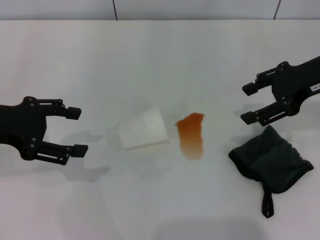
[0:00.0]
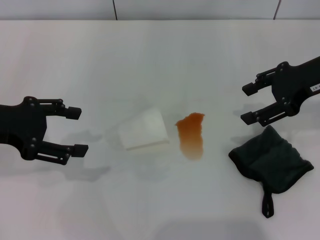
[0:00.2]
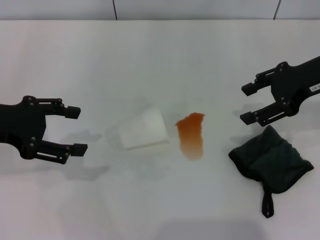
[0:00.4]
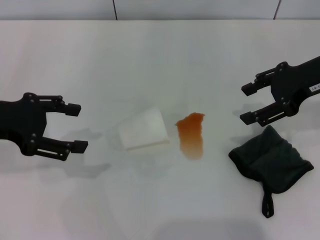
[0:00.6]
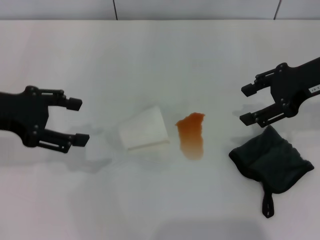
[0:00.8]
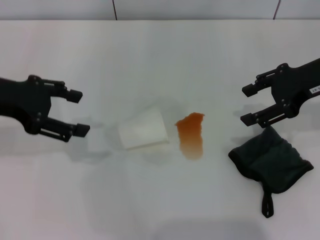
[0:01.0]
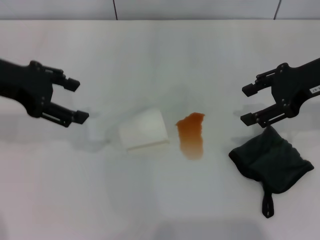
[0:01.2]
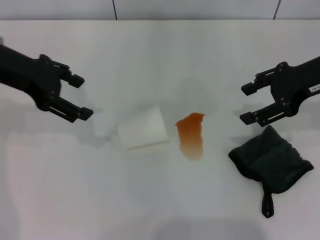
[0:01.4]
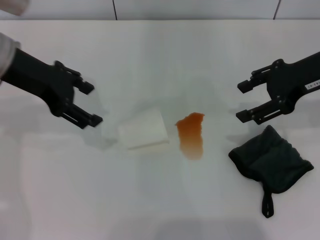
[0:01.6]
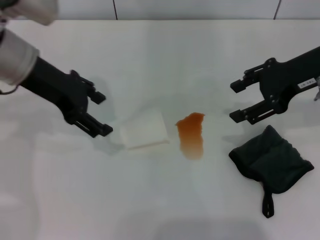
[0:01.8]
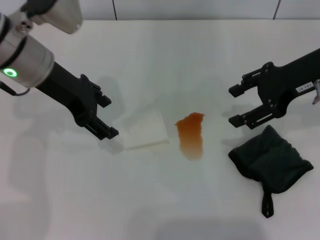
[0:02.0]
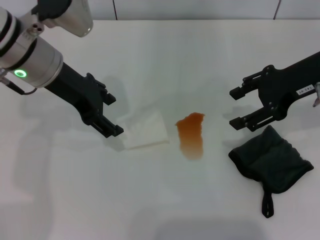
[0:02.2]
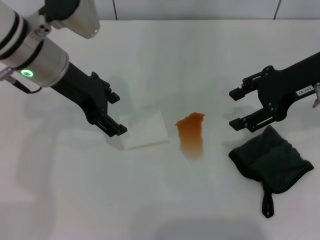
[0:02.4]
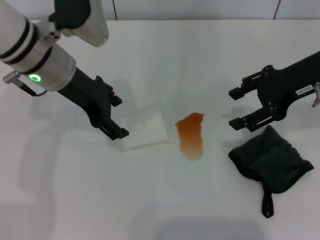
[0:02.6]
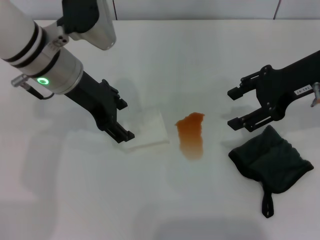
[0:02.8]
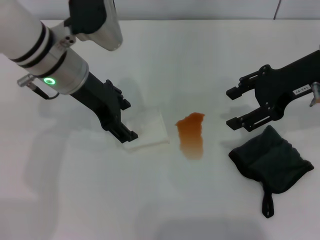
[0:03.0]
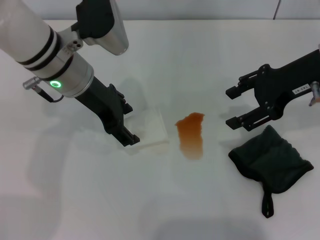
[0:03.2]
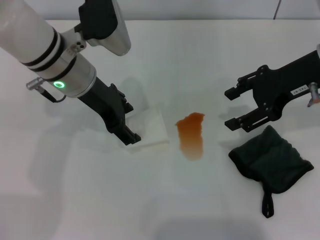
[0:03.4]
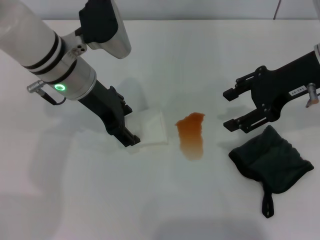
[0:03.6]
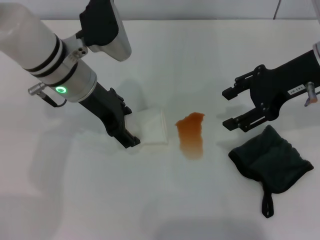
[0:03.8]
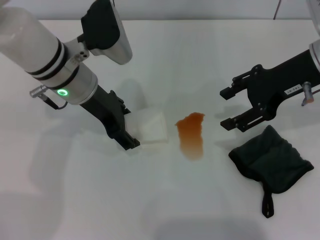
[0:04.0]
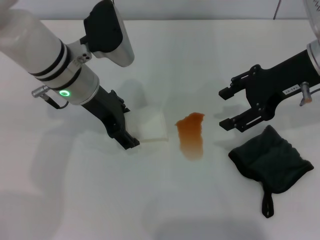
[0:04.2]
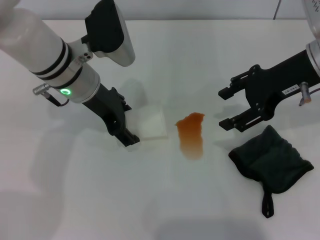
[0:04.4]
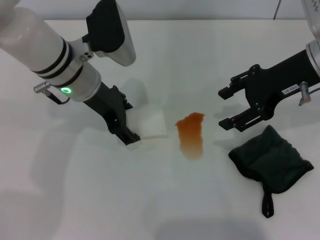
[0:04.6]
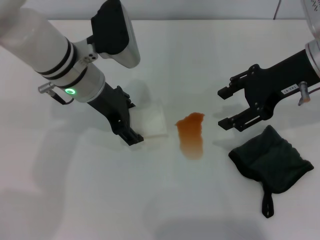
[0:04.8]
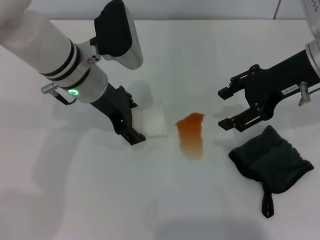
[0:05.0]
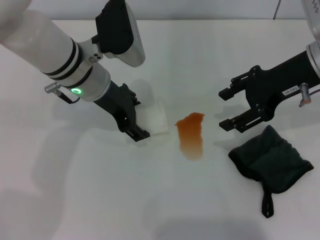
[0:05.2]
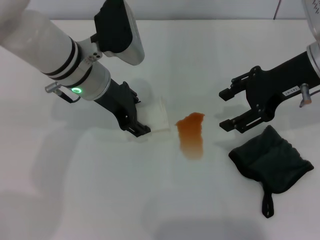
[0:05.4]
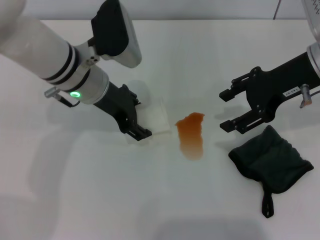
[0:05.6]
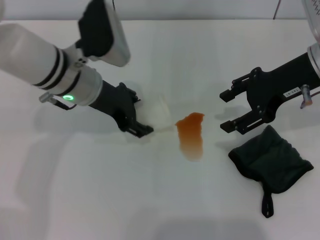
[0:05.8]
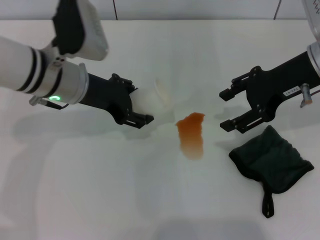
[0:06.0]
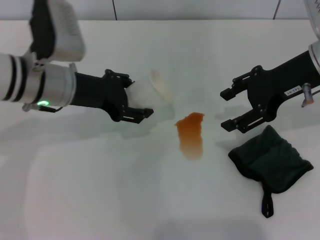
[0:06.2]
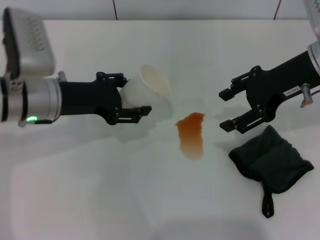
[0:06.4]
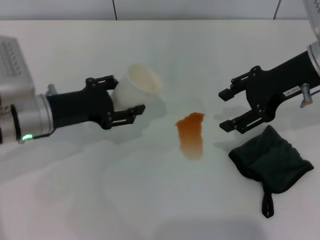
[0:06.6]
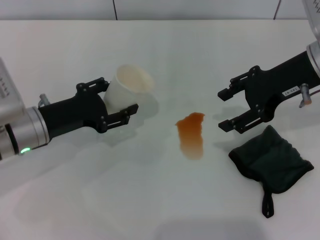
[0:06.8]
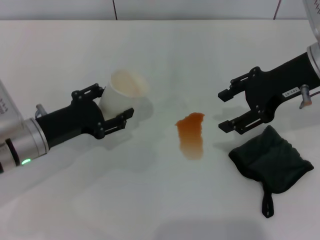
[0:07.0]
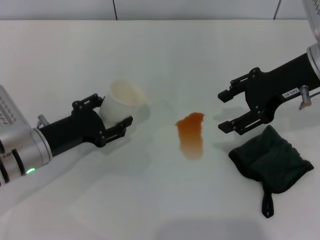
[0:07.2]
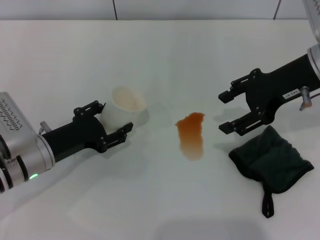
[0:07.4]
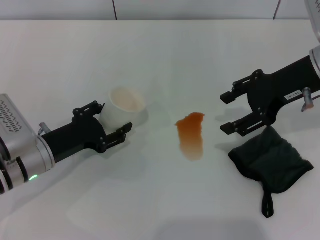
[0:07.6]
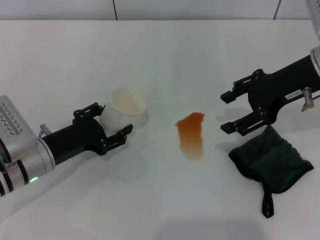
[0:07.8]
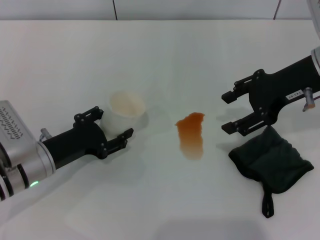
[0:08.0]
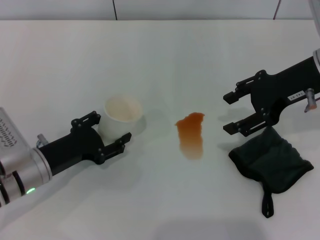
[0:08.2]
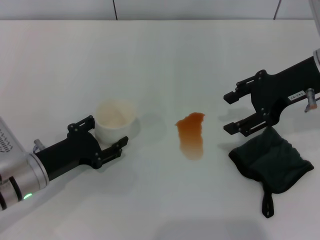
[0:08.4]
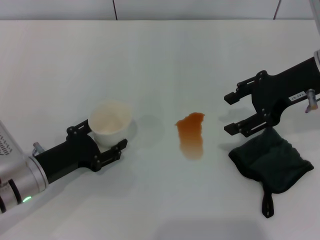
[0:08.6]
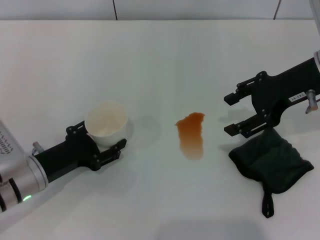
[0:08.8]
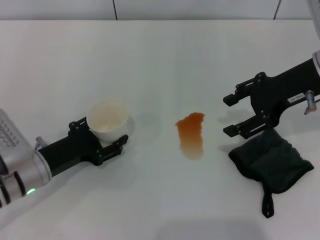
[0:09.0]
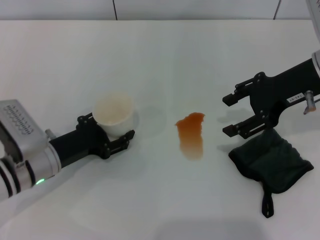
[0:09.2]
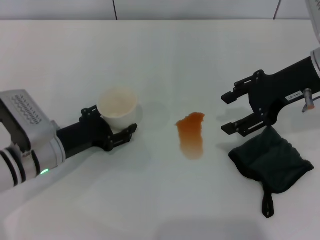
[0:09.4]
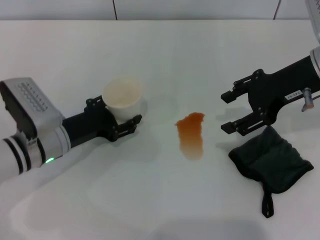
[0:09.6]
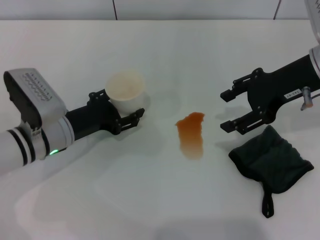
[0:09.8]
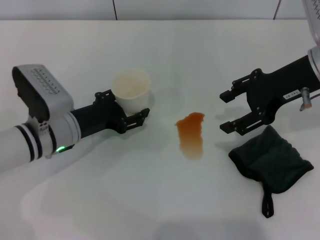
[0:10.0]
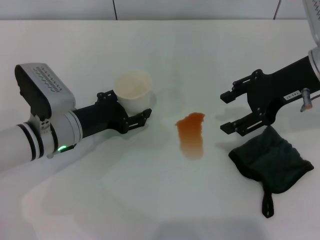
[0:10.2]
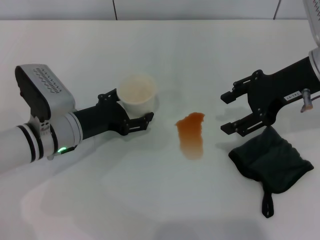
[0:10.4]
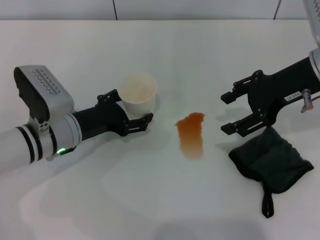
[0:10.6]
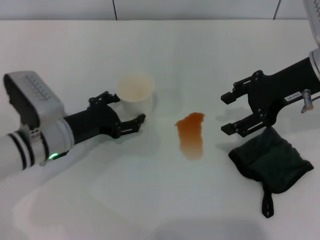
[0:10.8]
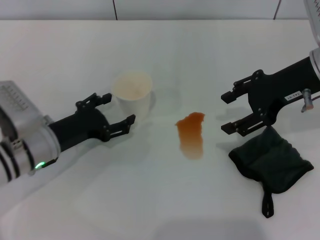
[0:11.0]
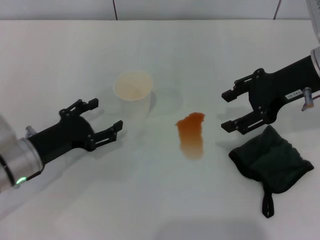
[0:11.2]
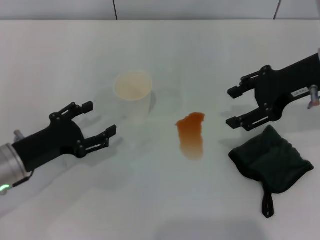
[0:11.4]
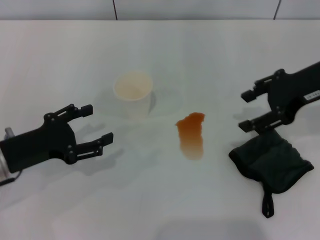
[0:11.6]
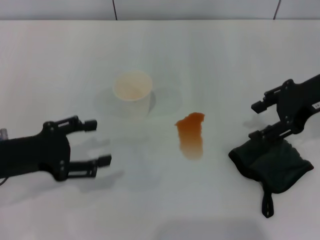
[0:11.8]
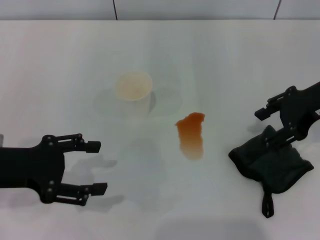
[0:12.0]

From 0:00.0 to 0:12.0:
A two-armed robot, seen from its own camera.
Step, from 0:00.0 to 0:05.4: Grasp the paper cup with the left gripper.
Step, from 0:05.6 to 0:11.0: Stand the paper cup upright with the left gripper.
From 0:00.0 to 0:01.6: The left gripper shifts roughly 10 cm forward and to the right.
From 0:01.6 to 0:03.0: The left gripper goes roughly 10 cm to the right.
From 0:03.0 to 0:04.4: The grippers stay close to where they were, moving slightly.
From 0:04.4 to 0:06.0: The left gripper closes up.
From 0:06.0 to 0:07.6: The left gripper travels downward, backward and to the left by roughly 15 cm.
From 0:07.6 to 0:09.0: The grippers make only small movements.
From 0:09.0 to 0:10.4: The left gripper shifts about 5 cm forward.
From 0:10.4 to 0:12.0: The left gripper moves upward, to the left and backward, roughly 15 cm, and opens its fingers.

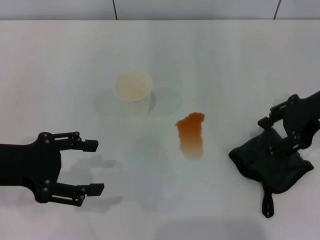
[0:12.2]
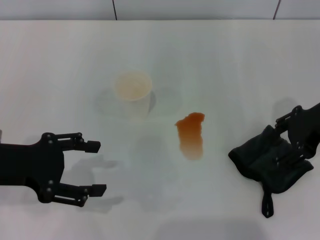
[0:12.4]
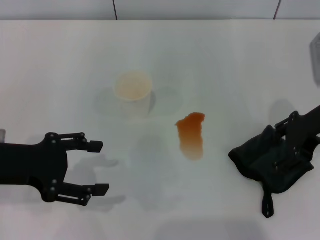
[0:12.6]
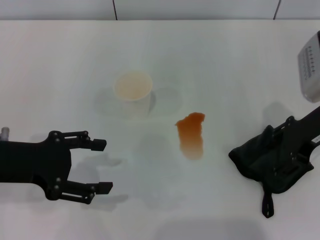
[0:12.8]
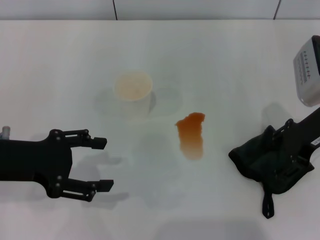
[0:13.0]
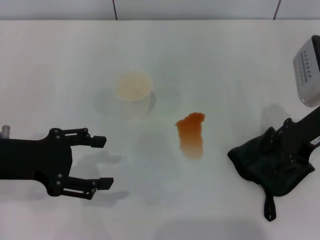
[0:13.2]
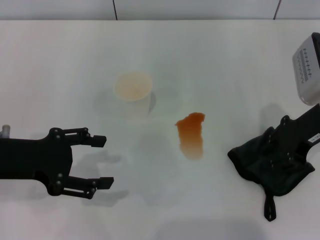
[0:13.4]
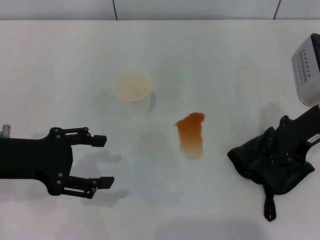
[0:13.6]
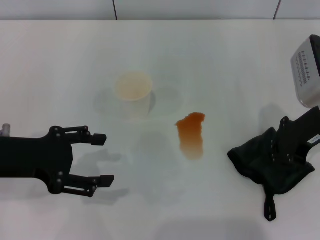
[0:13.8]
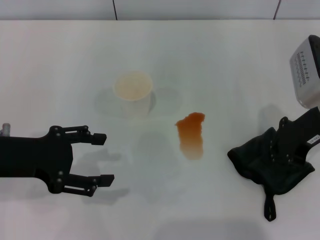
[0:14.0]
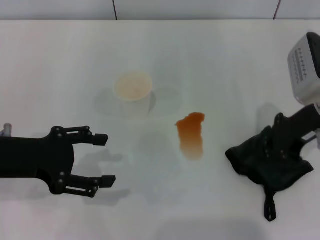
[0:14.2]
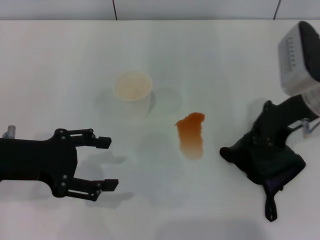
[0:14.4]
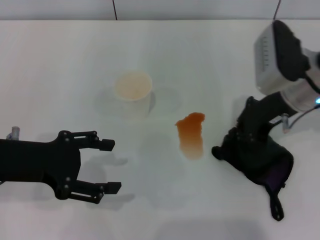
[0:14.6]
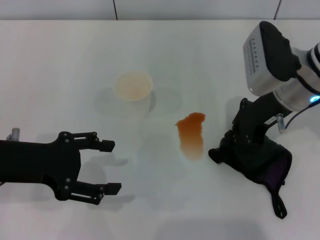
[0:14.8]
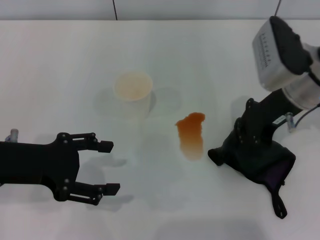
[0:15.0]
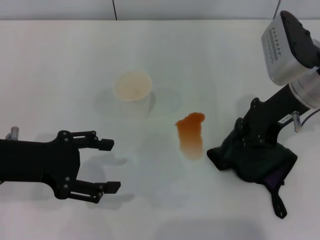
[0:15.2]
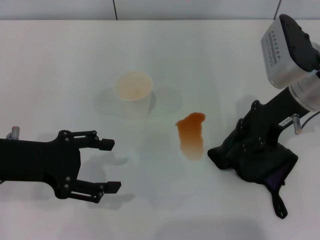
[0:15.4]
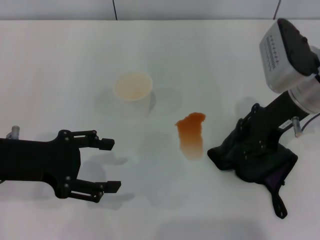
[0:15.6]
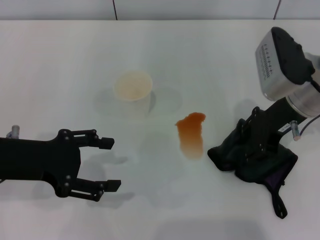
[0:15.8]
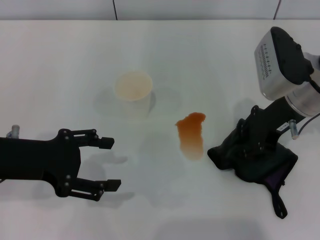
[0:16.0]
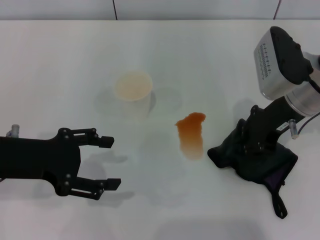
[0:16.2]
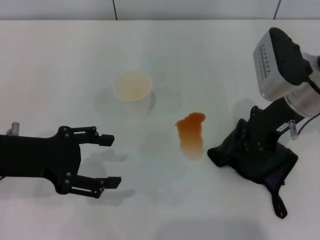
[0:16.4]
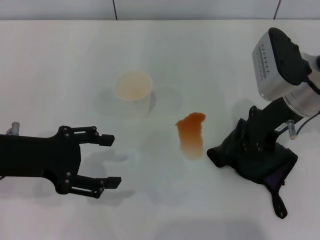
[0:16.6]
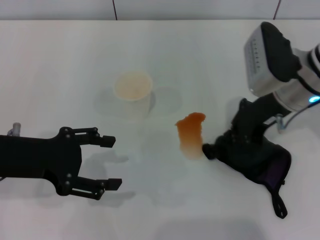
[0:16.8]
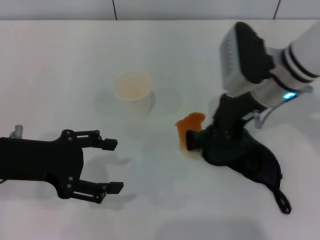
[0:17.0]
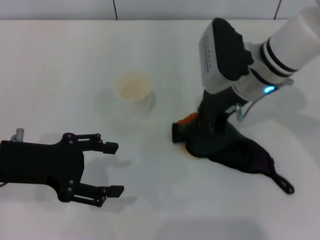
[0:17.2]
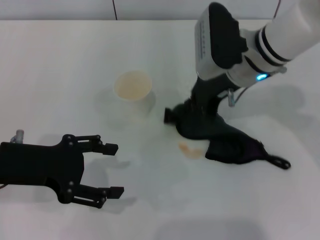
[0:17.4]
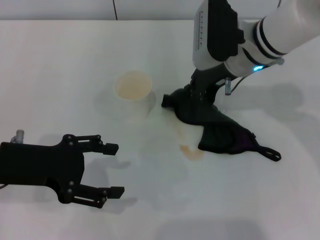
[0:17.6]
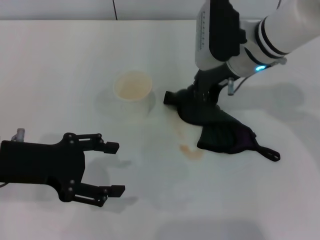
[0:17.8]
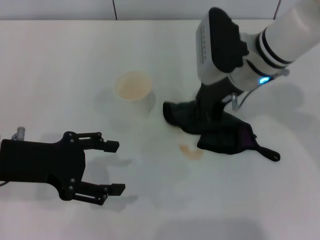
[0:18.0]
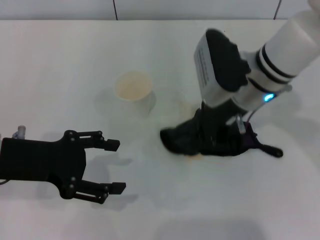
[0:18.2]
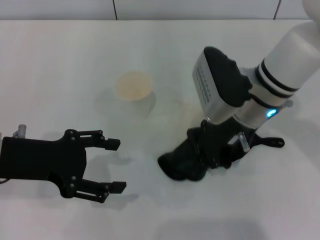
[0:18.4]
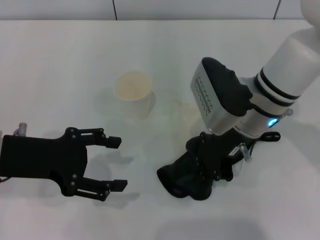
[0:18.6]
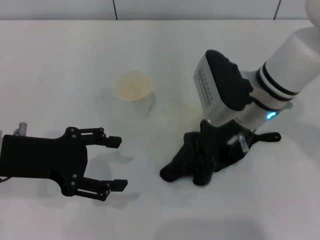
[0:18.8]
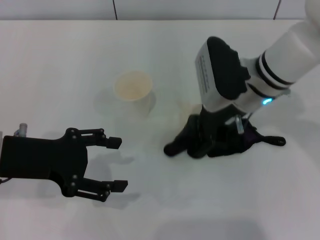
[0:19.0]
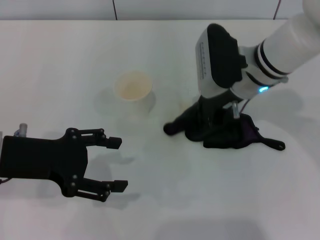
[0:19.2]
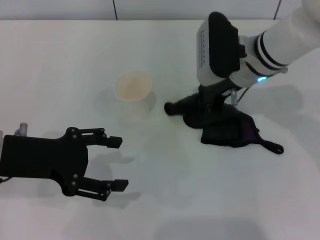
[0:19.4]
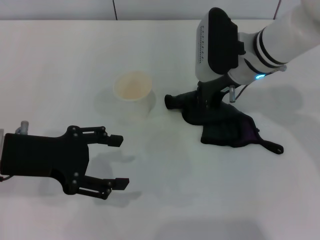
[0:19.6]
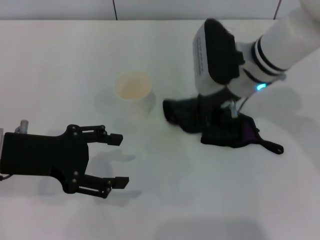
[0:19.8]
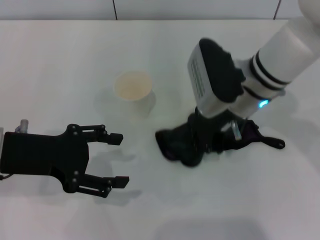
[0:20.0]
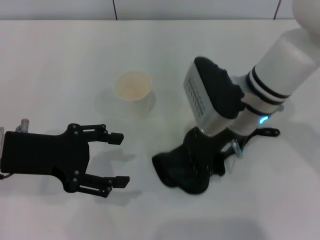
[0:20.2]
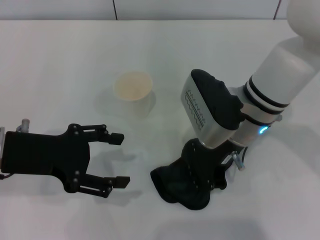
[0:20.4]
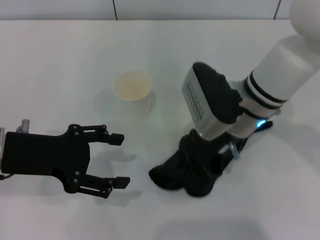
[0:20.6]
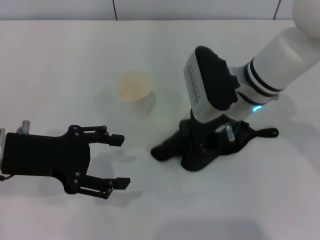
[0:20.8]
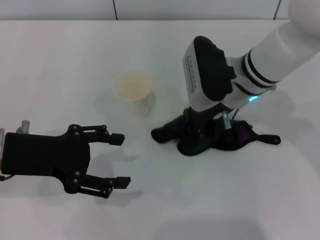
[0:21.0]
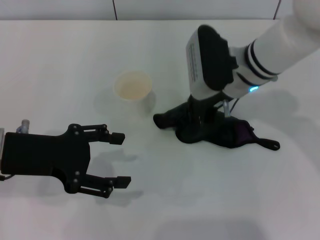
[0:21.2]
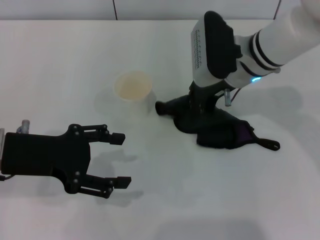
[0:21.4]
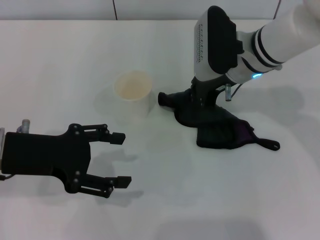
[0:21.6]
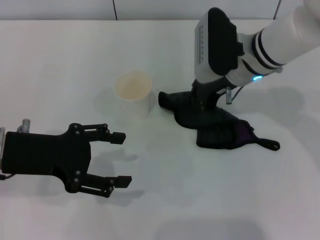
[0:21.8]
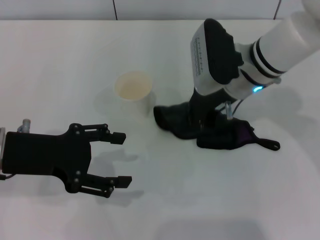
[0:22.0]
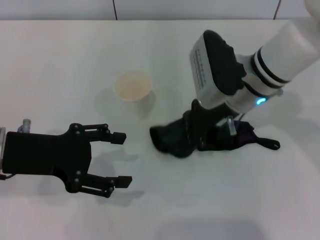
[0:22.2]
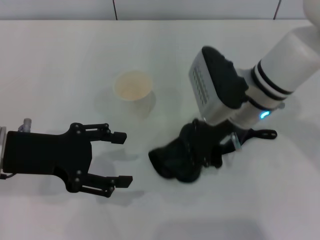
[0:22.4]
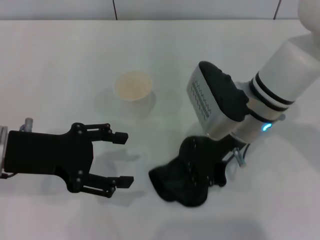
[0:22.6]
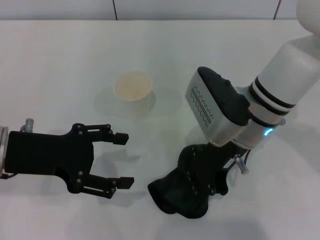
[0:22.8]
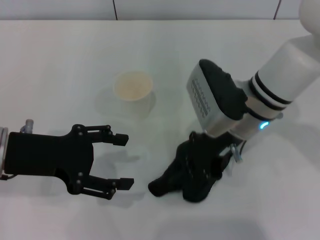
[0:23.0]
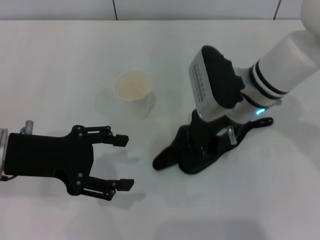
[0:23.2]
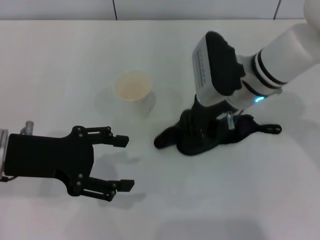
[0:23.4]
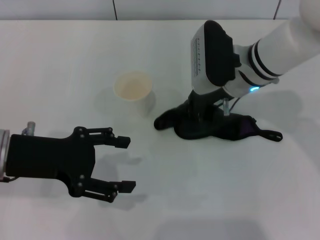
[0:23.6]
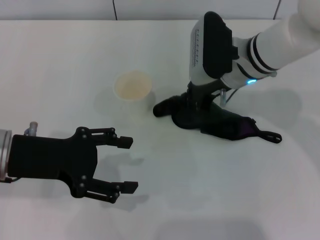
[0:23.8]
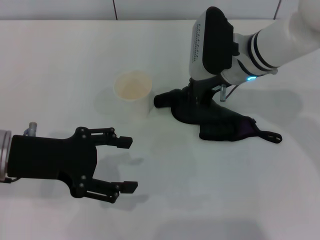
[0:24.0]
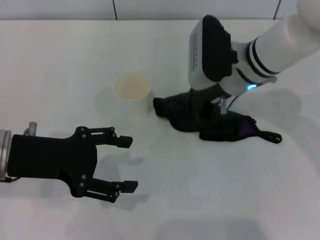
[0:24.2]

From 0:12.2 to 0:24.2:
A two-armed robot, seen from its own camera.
Step, from 0:12.2 to 0:16.4: Grasp the rag with the right gripper.
From 0:12.2 to 0:13.8: The right gripper closes its fingers.
From 0:15.2 to 0:16.6: The right gripper opens and closes again.
From 0:16.6 to 0:18.2: The right gripper travels to the left by about 10 cm.
From 0:18.2 to 0:19.8: The grippers stay close to where they were, moving slightly.
From 0:21.2 to 0:22.6: The right gripper is displaced backward by roughly 5 cm.
From 0:22.6 to 0:24.2: The right gripper heads forward, covering some 5 cm.
